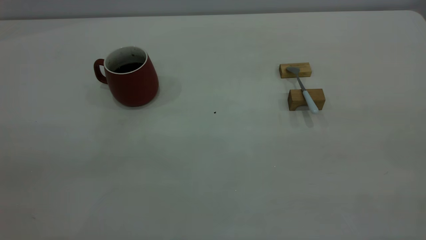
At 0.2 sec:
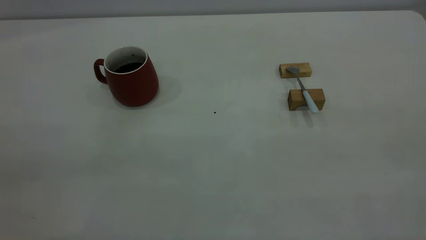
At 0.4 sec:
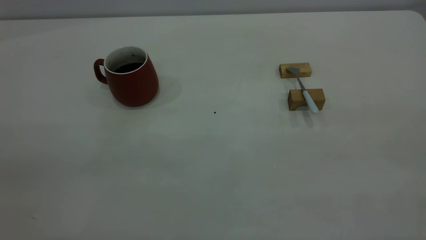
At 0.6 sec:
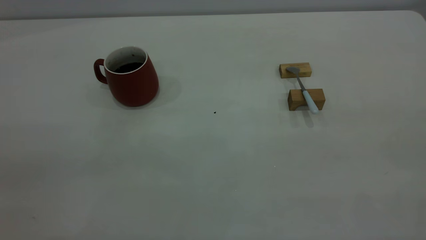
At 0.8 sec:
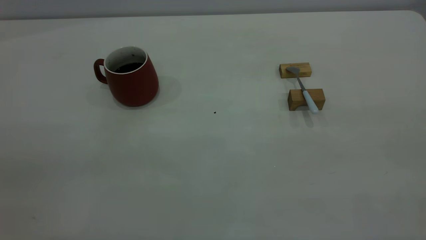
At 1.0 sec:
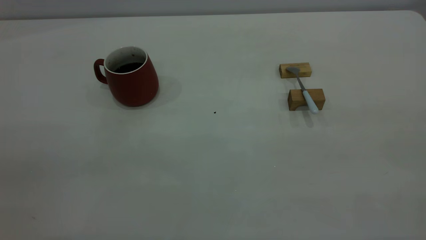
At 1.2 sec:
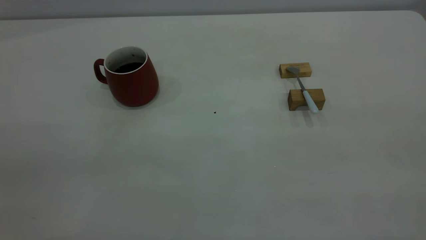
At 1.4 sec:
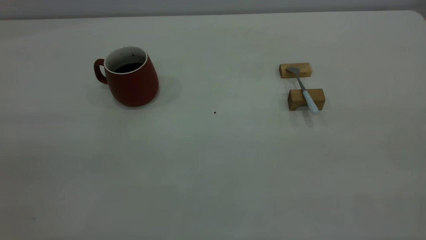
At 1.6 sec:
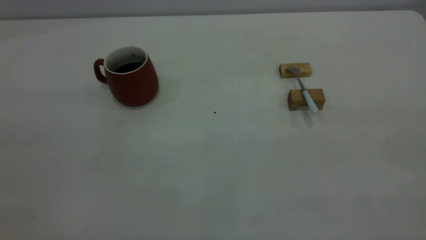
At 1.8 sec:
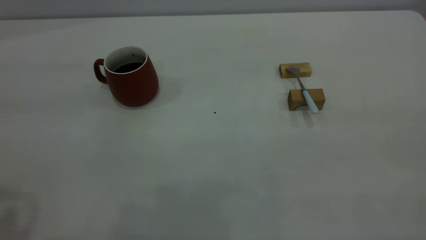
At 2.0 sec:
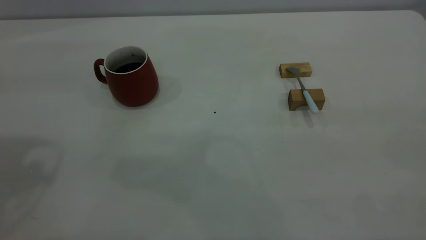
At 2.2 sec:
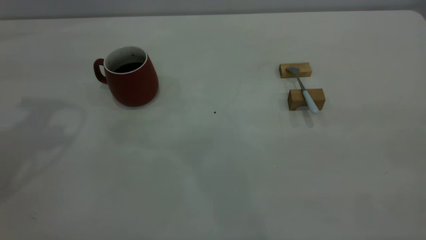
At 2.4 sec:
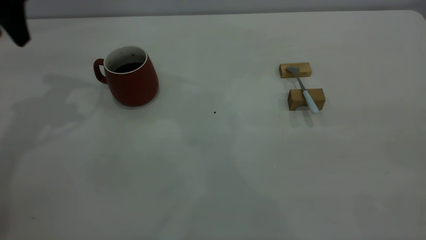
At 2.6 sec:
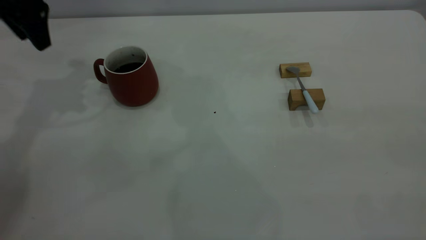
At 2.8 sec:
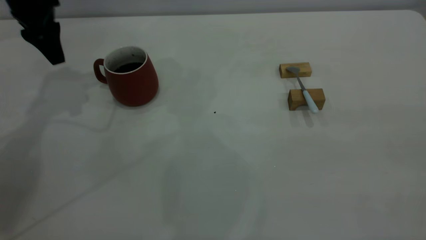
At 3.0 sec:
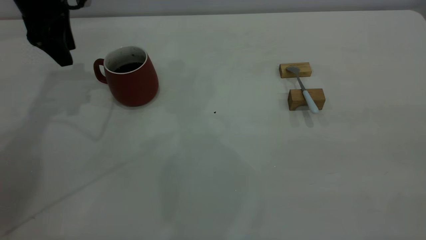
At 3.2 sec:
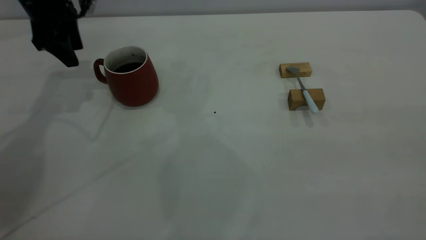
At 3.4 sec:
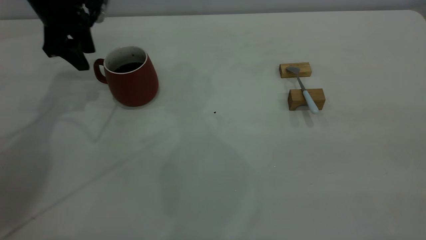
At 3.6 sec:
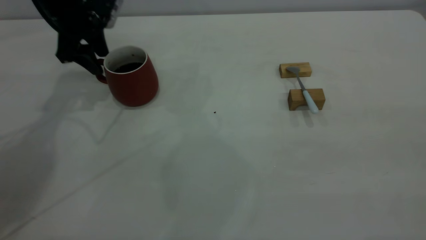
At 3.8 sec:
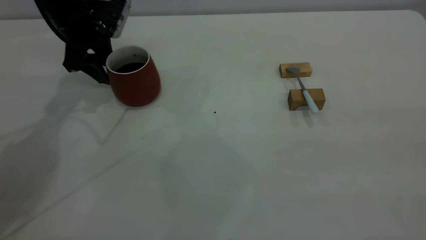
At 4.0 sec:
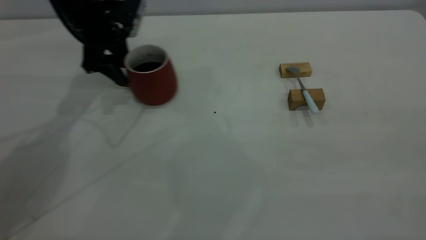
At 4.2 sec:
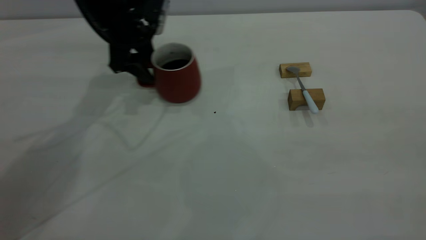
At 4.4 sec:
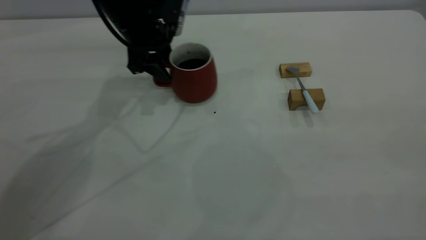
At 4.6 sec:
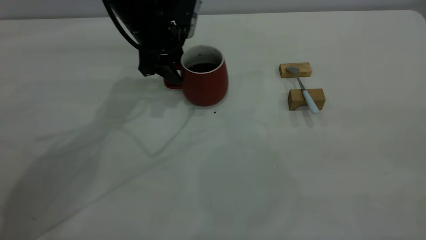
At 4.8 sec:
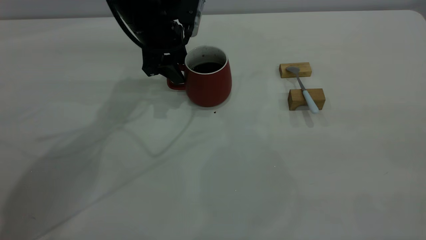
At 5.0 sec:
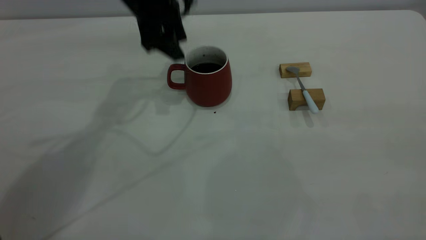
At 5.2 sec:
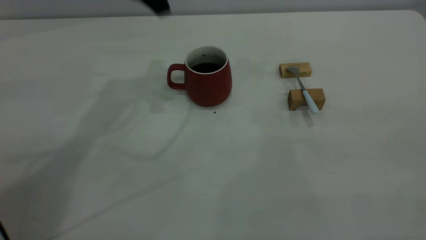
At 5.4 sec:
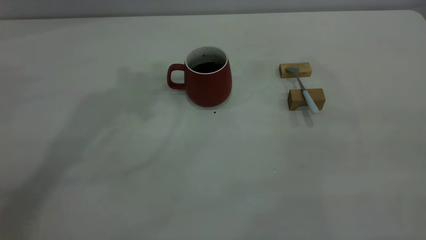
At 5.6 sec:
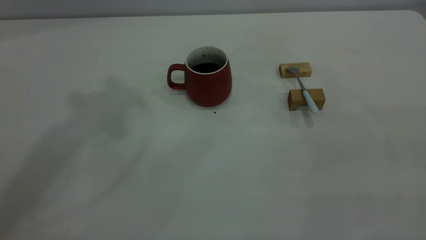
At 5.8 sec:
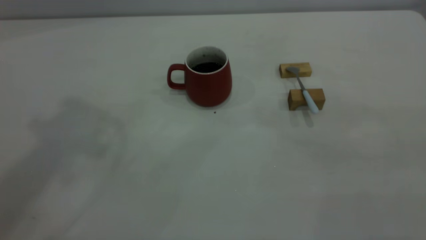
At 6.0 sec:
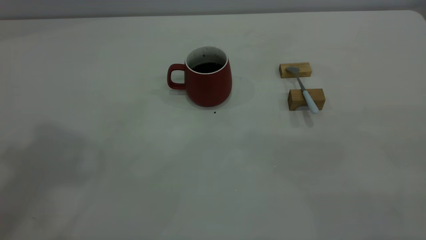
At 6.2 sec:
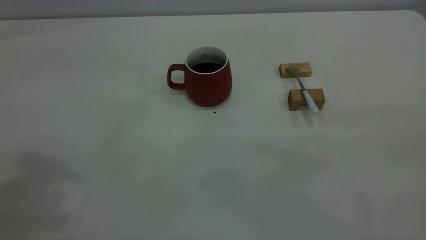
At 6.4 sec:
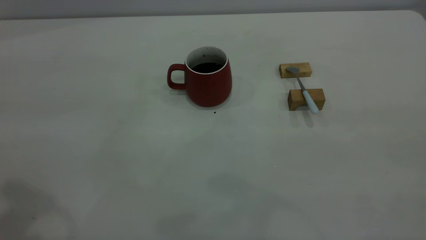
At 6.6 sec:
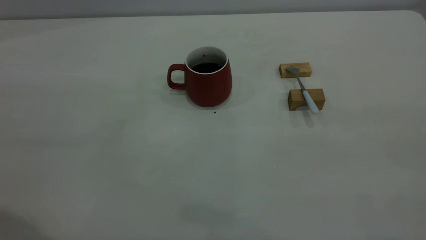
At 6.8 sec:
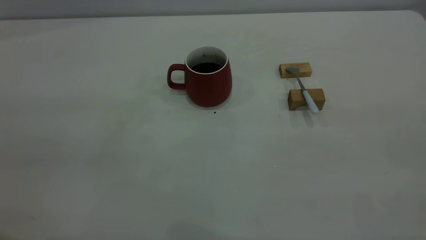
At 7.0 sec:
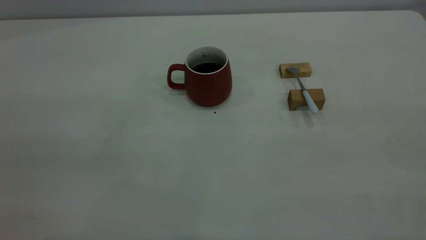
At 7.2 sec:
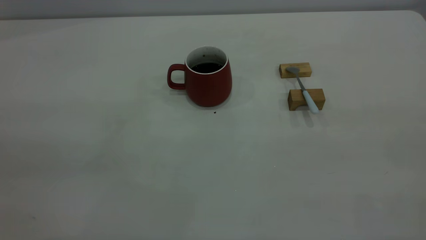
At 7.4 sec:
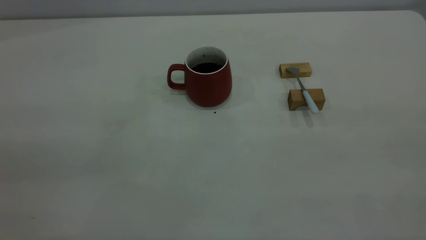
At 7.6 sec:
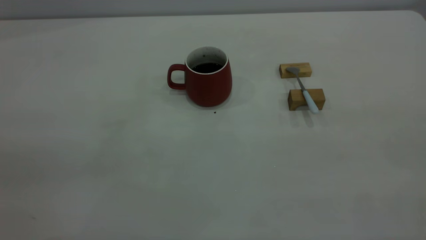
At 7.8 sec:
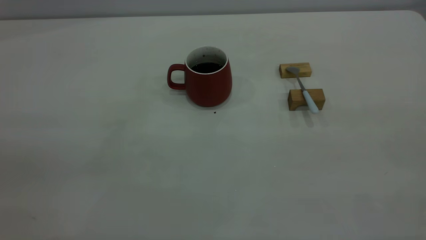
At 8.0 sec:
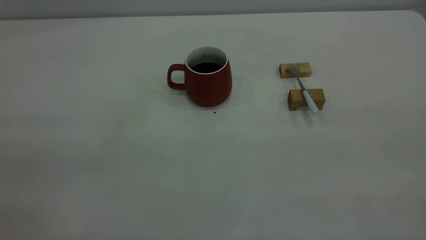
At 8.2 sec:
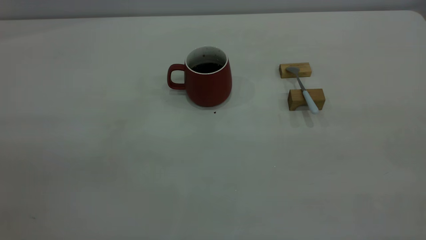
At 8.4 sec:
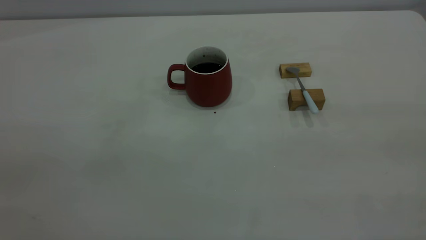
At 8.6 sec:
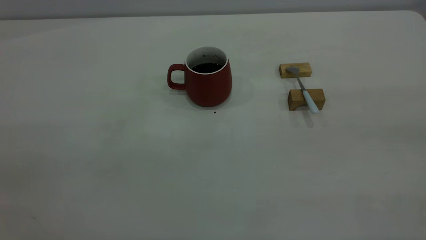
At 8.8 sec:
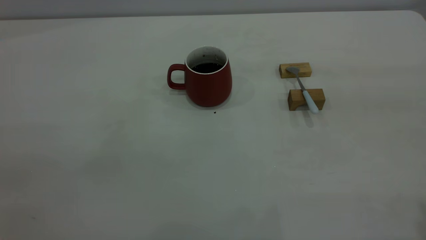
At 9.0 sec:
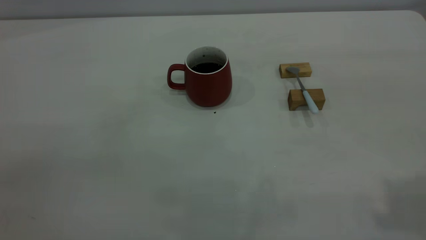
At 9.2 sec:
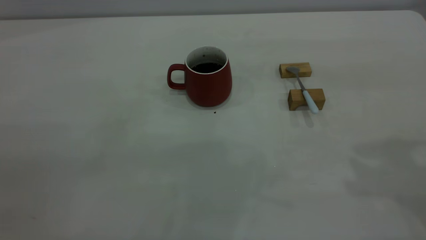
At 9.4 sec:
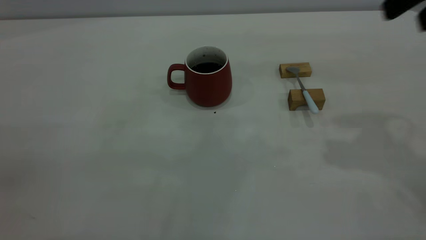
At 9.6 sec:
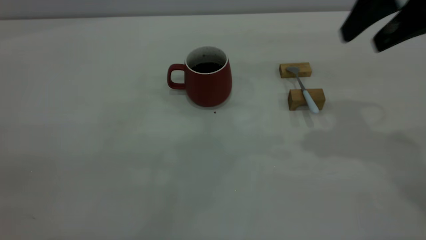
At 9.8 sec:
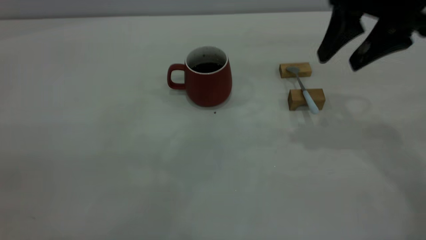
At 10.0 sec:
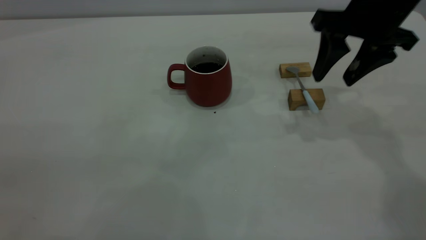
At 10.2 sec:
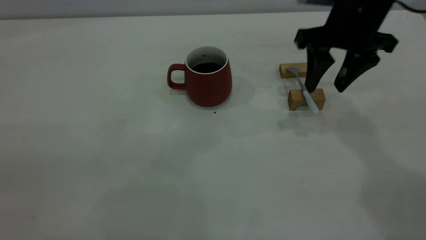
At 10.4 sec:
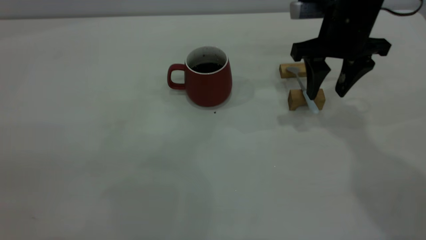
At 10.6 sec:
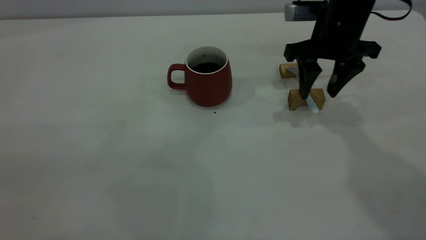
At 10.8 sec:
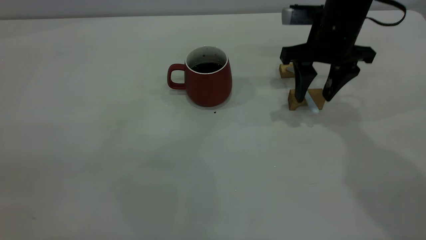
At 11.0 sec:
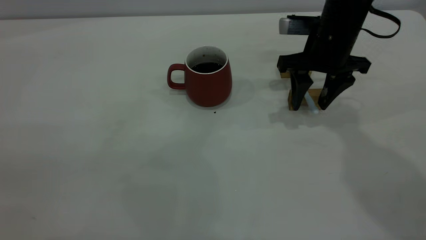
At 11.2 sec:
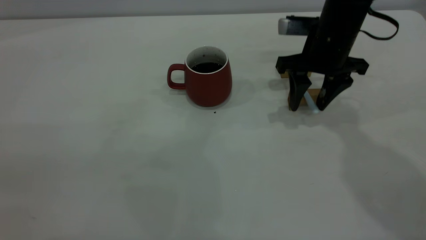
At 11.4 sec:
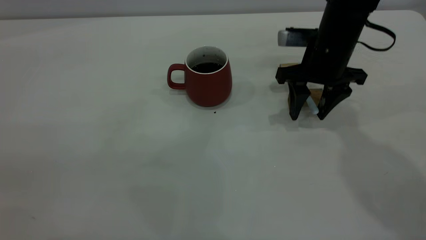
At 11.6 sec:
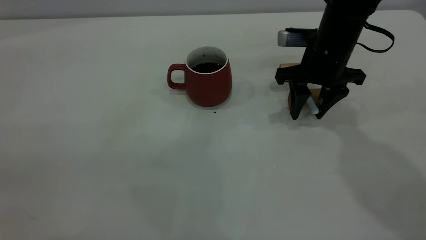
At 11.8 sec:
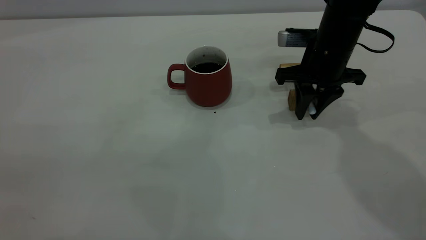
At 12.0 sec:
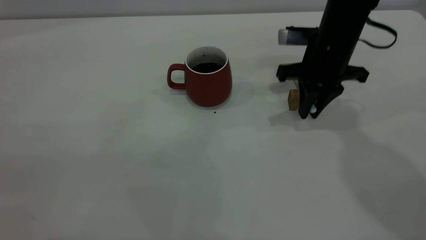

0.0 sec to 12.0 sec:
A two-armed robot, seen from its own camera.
Step, 0.0 sec to 4.8 sec: Move the cup with coffee to the center of view.
1.6 sec to 3.0 sec: The left gripper heads forward and downward, covering approximately 40 cm.
3.0 sec to 4.4 sec: The left gripper travels to the right by some 15 cm.
4.4 sec to 6.0 sec: The left gripper shifts some 50 cm upward and backward.
9.0 sec to 10.4 sec: The right gripper heads forward, downward and to the left, covering approximately 35 cm.
10.4 sec to 12.0 sec: The right gripper closes up.

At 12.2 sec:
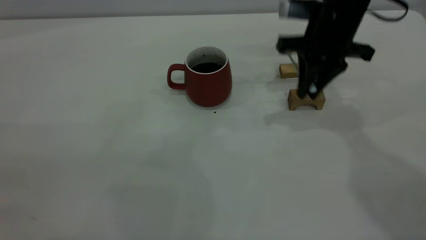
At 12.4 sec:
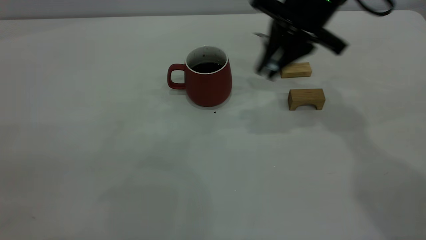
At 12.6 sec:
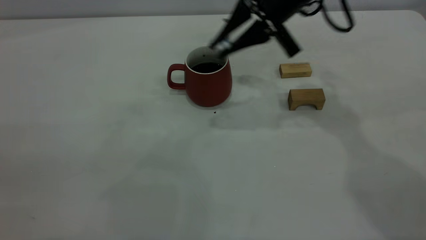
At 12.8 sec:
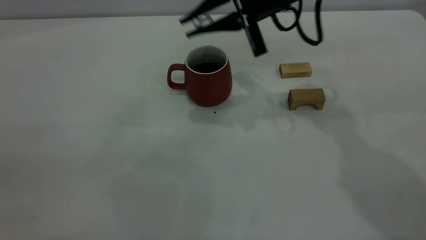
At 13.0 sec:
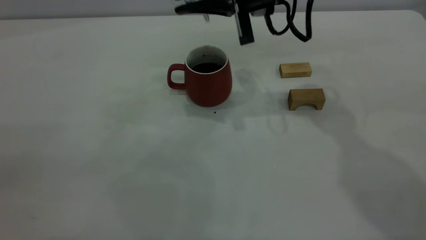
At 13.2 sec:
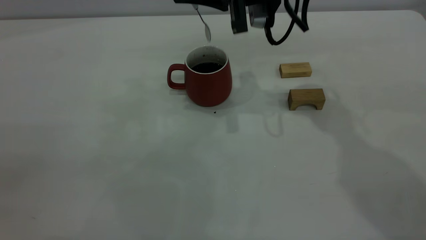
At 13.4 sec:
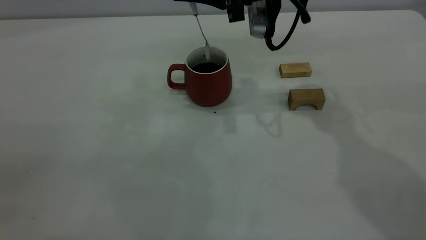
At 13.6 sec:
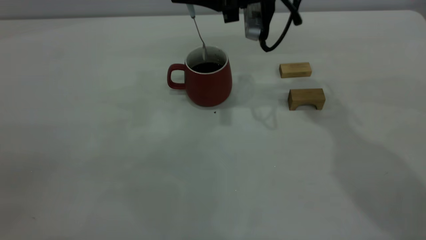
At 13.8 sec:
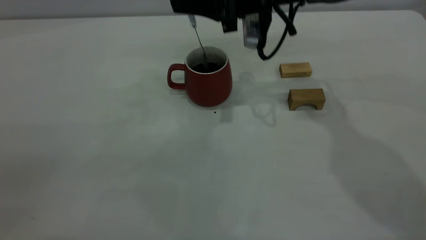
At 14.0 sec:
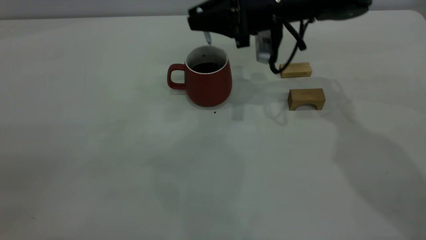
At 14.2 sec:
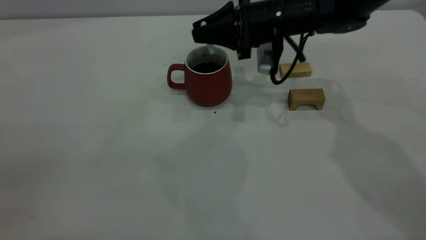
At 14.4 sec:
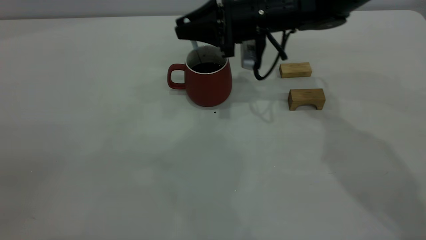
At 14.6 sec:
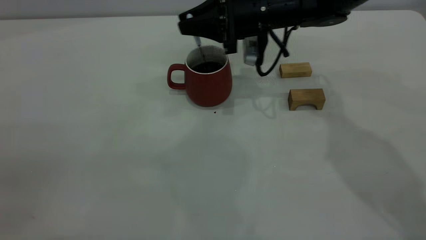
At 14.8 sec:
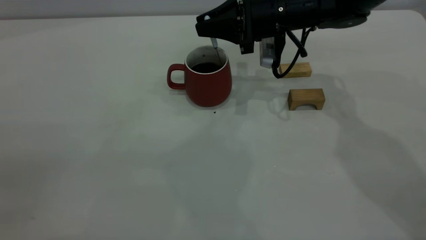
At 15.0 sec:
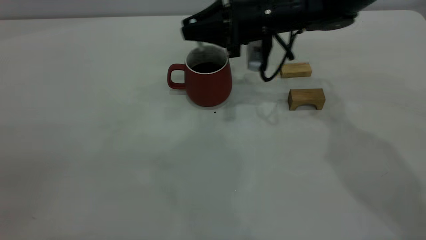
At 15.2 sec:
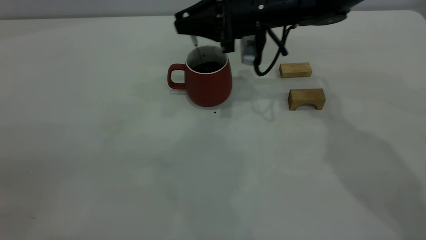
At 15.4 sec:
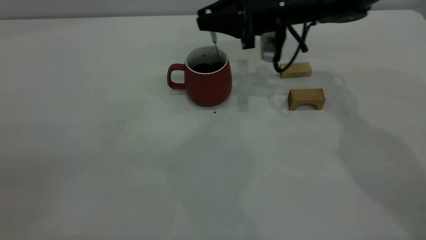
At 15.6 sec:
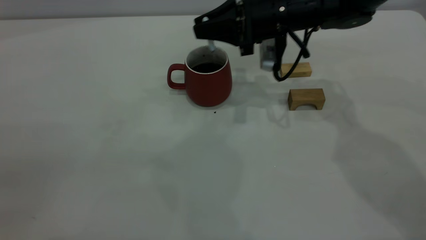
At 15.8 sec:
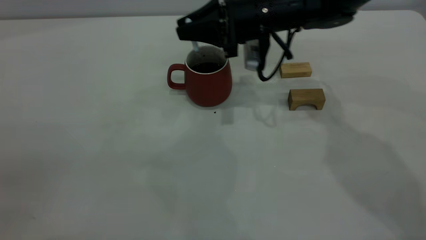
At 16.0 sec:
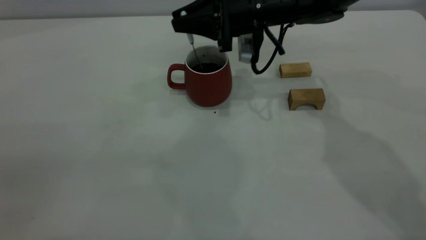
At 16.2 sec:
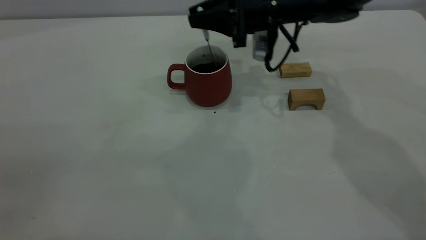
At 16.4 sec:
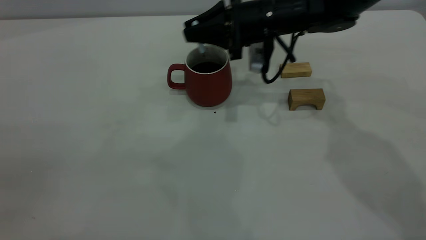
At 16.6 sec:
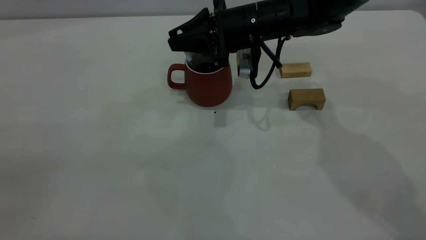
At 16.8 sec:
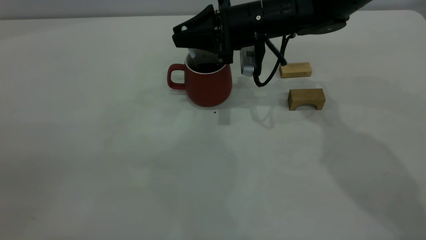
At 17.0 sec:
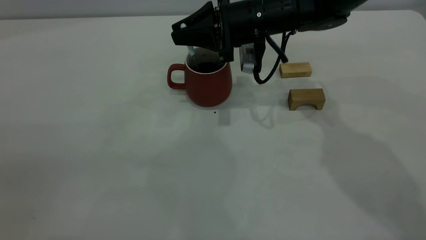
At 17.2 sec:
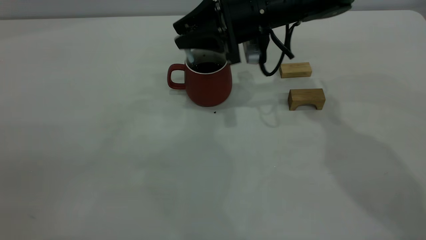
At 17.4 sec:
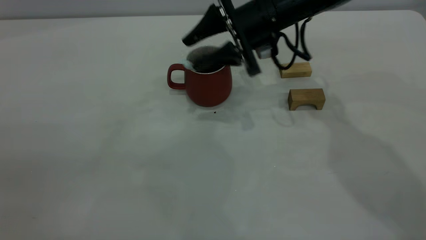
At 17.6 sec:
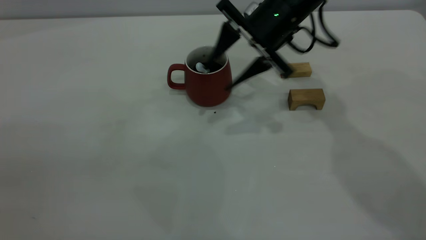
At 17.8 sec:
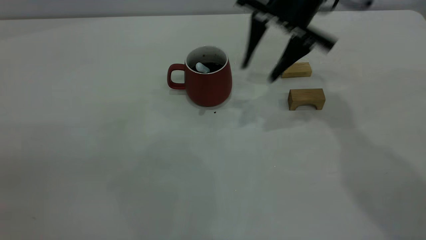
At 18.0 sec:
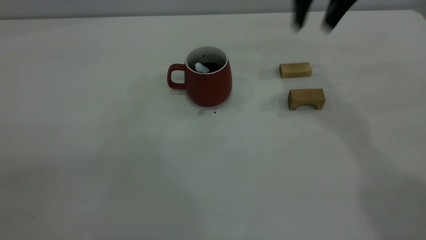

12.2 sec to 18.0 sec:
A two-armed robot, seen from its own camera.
Step, 12.2 sec to 17.6 sec: Stir the coffee in the cup.
12.2 sec to 13.6 sec: The right gripper heads to the left, covering about 10 cm.
13.6 sec to 15.0 sec: The right gripper travels downward by about 5 cm.
15.0 sec to 16.6 sec: The grippers stay close to where they were, moving slightly.
16.6 sec to 18.0 sec: The right gripper goes some 20 cm upward and to the right, and opens up.
